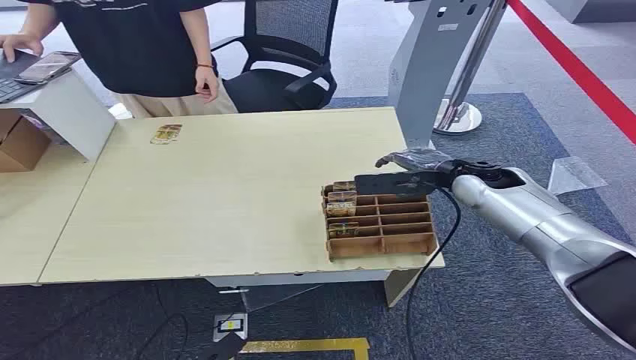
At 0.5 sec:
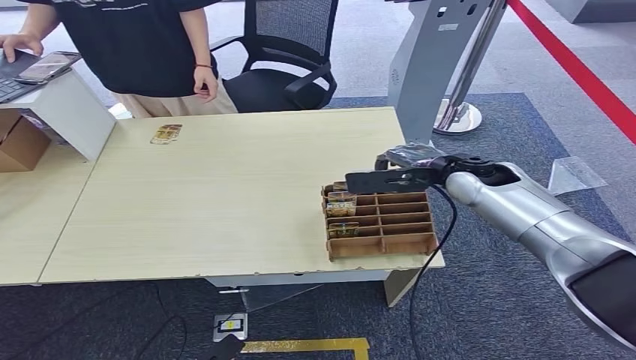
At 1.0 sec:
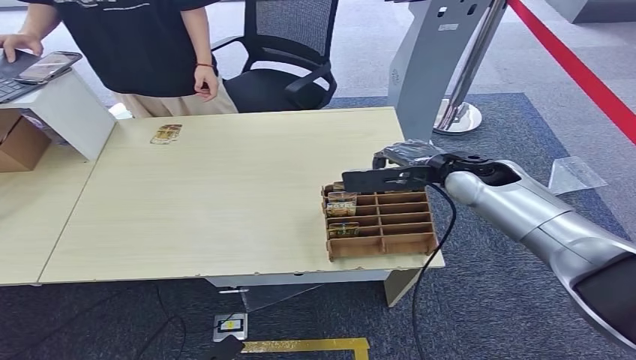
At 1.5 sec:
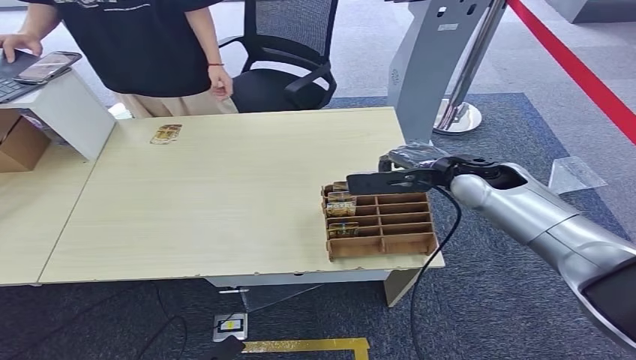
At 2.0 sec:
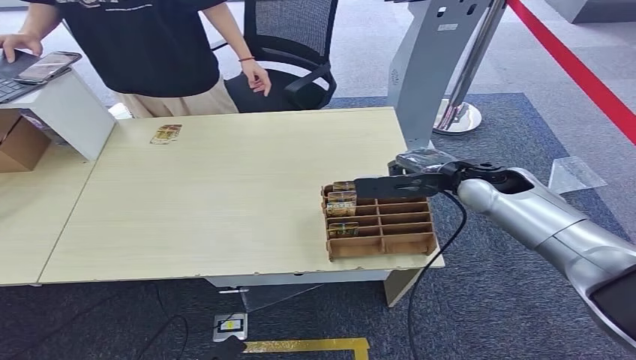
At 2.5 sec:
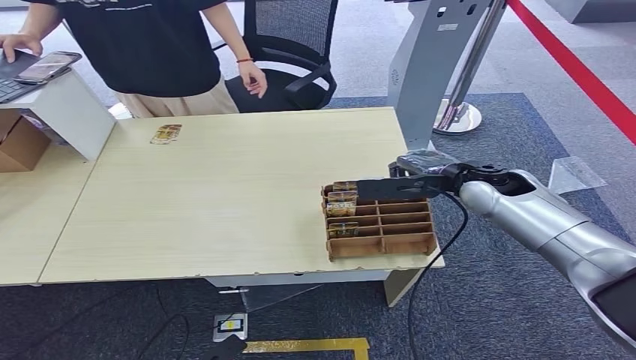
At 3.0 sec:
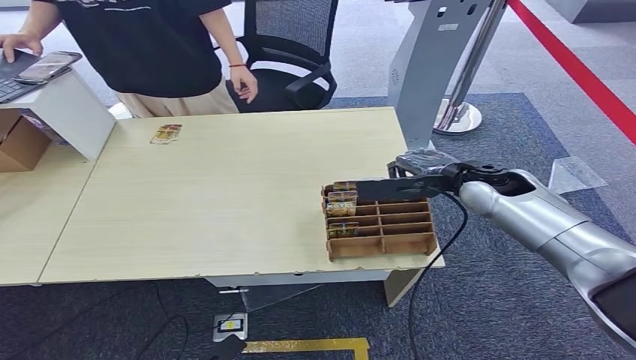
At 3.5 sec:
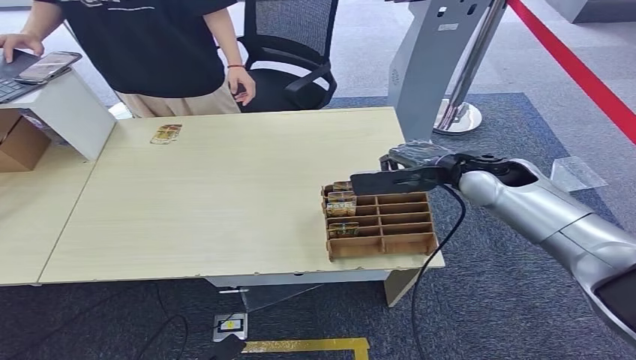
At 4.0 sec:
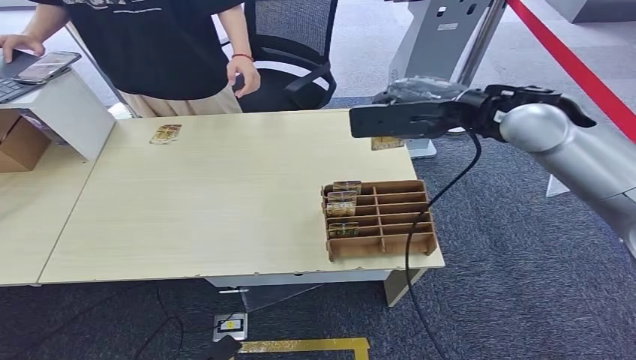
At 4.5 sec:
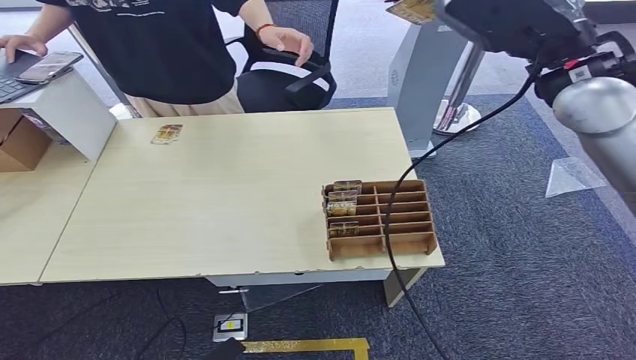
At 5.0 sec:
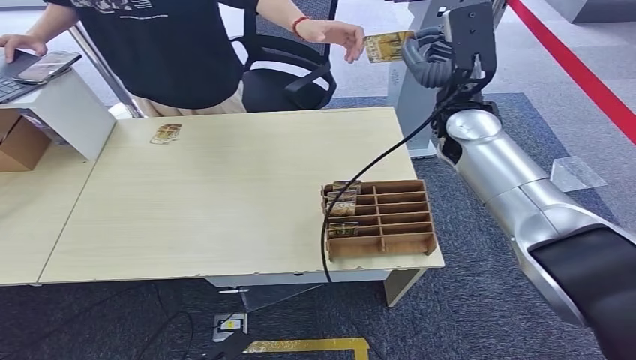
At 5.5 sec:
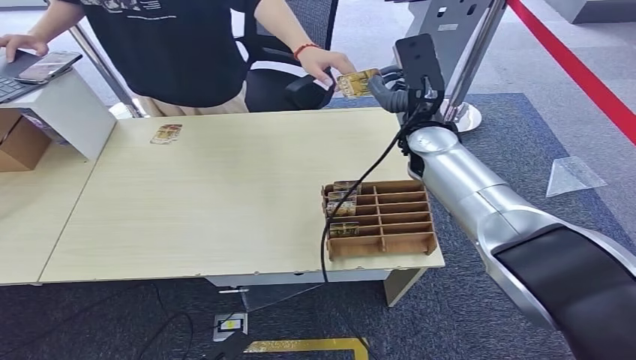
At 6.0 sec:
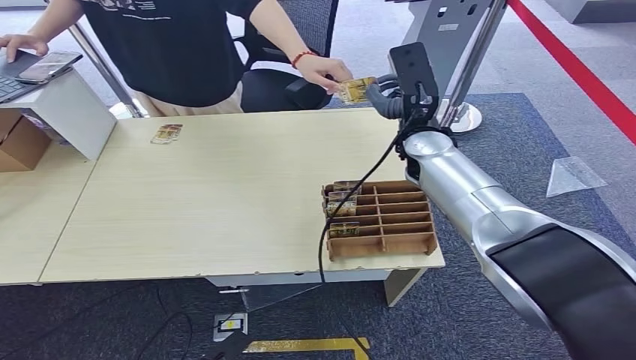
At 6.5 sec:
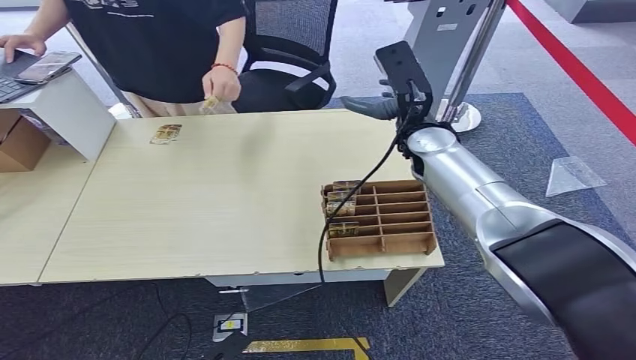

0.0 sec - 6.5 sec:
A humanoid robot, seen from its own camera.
Step, 0.0 sec - 4.0 sec: Pick up the key card from the card box.
Step, 4.5 sec - 6.5 sec: Hand the key card to the target.

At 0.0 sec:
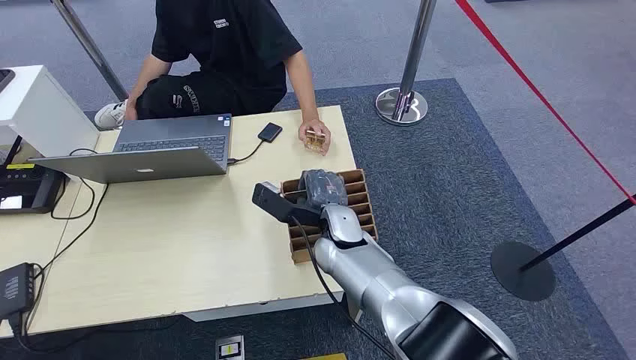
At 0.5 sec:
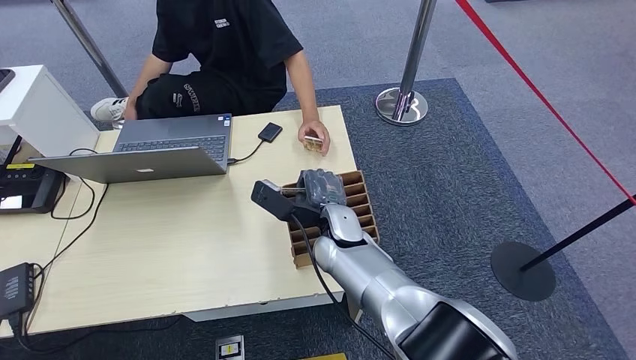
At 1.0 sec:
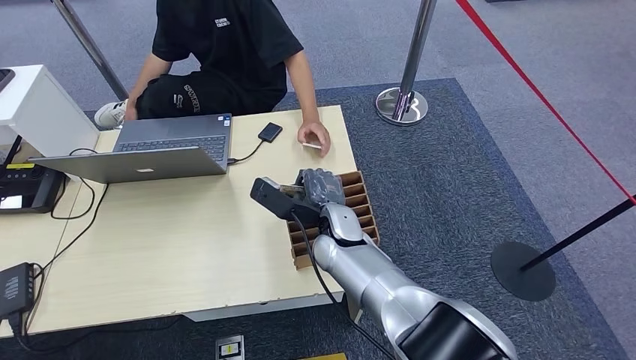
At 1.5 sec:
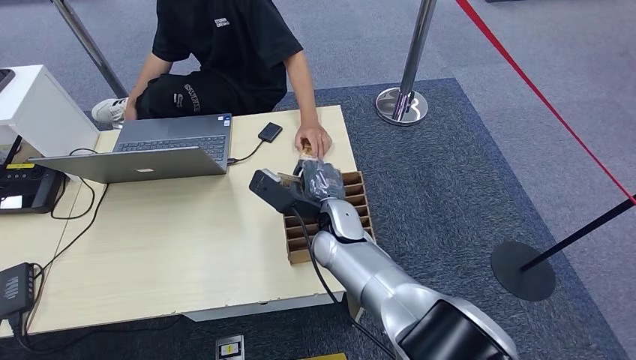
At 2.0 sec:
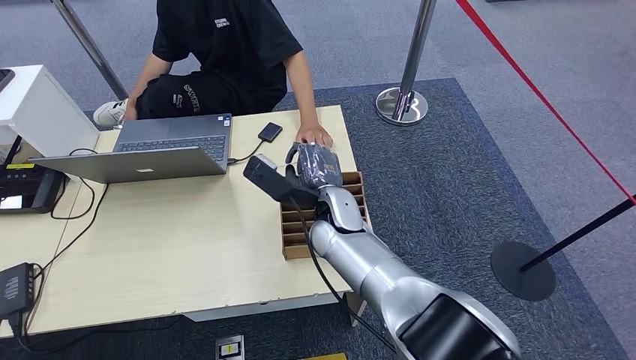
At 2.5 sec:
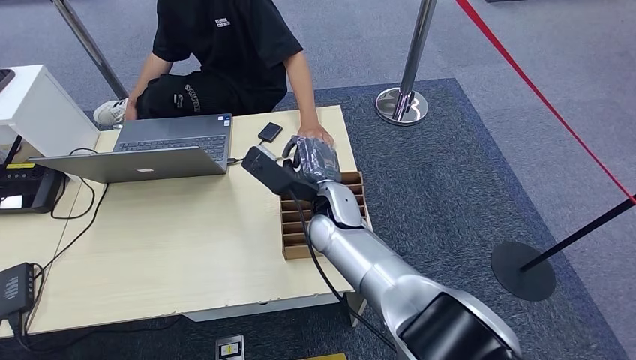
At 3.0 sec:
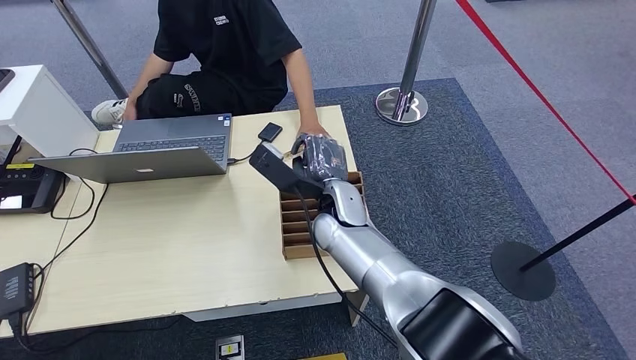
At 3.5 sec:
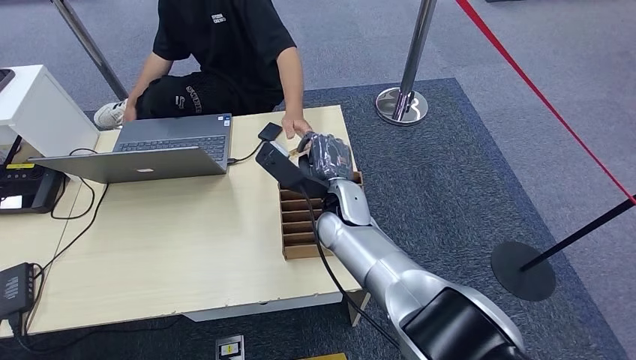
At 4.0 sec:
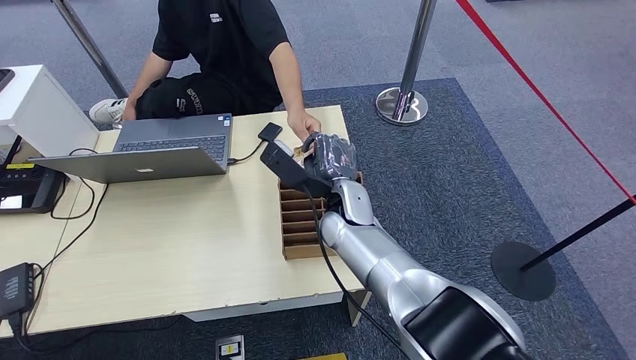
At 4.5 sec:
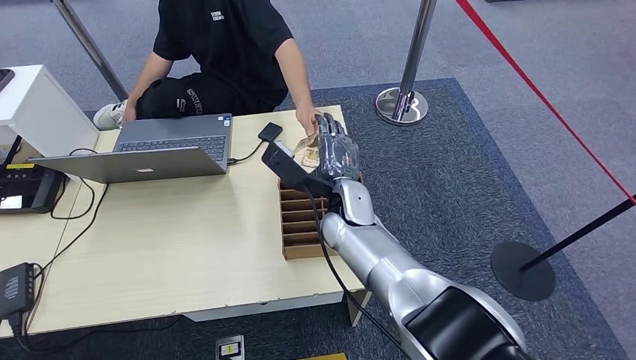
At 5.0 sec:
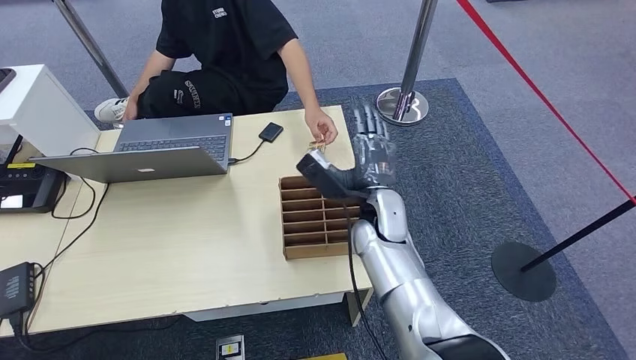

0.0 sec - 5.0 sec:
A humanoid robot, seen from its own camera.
Step, 0.0 sec - 3.0 sec: Pick up the key card from the card box.
Step, 3.5 sec - 5.0 sec: Hand the key card to the target.
2.5 sec - 5.0 sec: The right hand is displaced to the right by roughly 5 cm.
